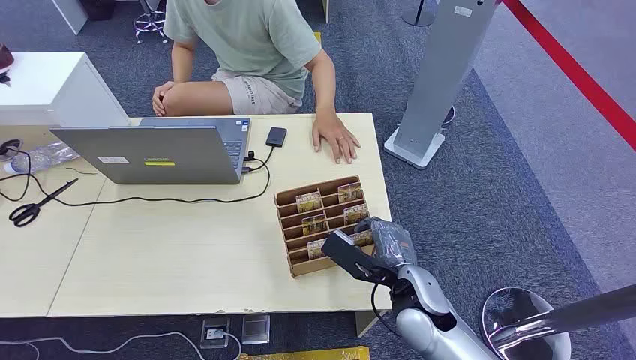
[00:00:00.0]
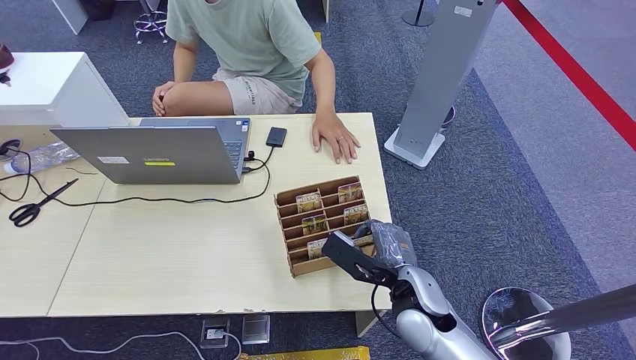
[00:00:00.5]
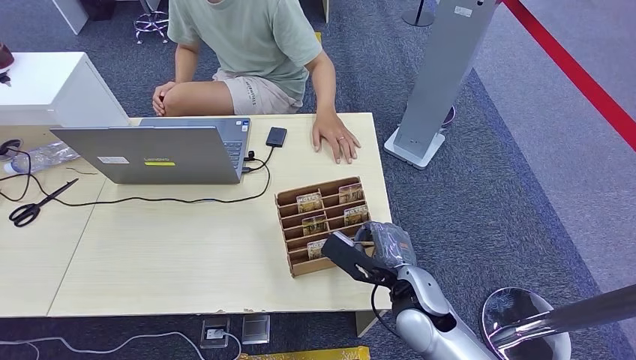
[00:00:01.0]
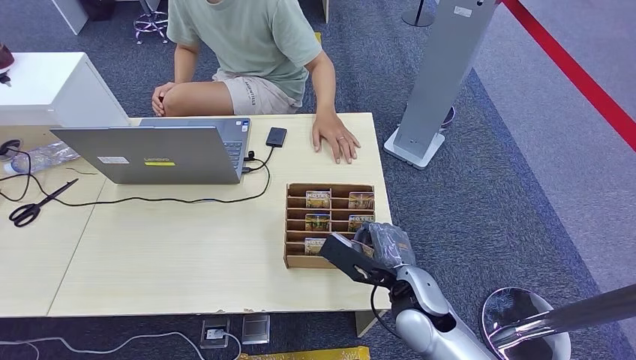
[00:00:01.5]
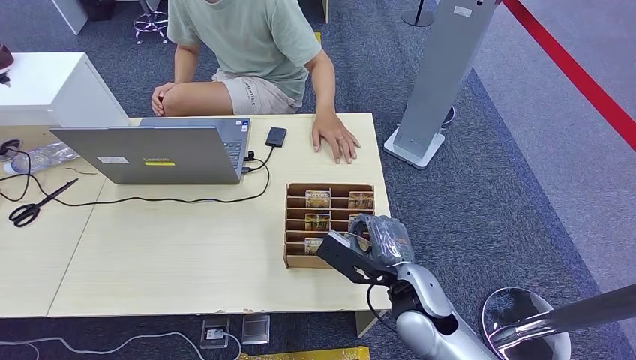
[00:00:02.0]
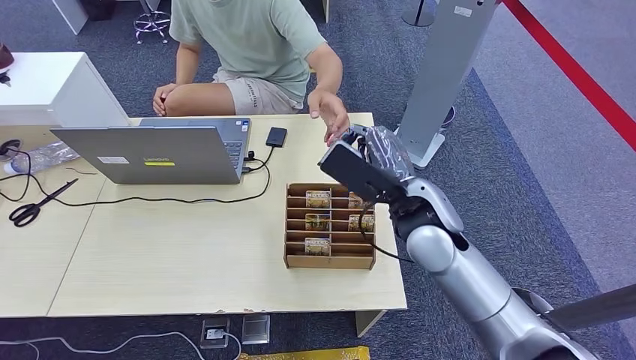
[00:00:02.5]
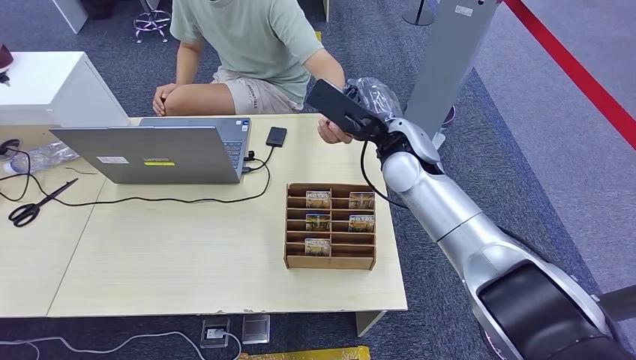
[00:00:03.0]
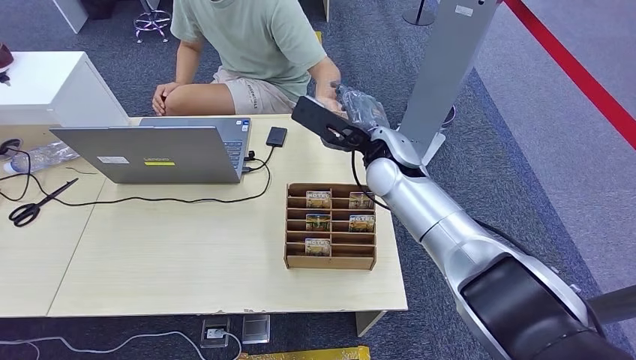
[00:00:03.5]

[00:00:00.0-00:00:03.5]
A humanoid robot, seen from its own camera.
Step, 00:00:00.0 to 00:00:02.0: Pick up the room card from the card holder.
Step, 00:00:03.0 to 00:00:03.5: Hand the room card to the target.
00:00:02.0 to 00:00:03.5: The right hand heads forward and upward, covering about 25 cm.

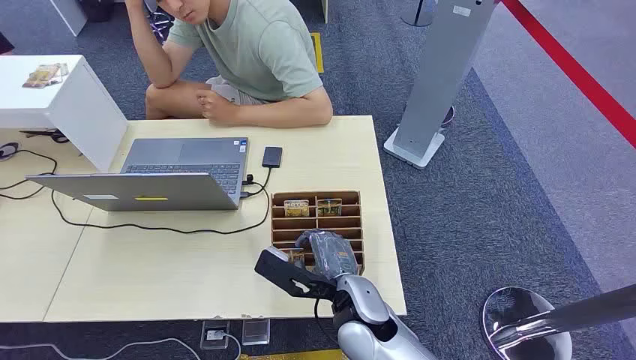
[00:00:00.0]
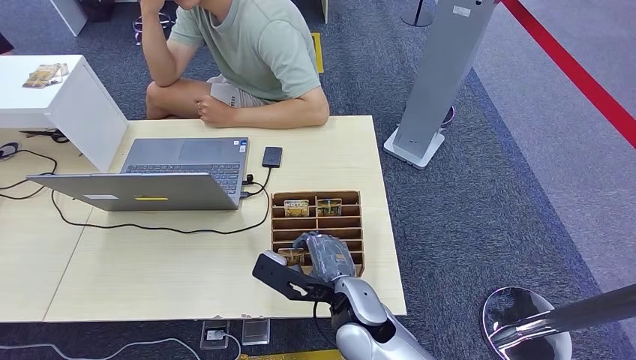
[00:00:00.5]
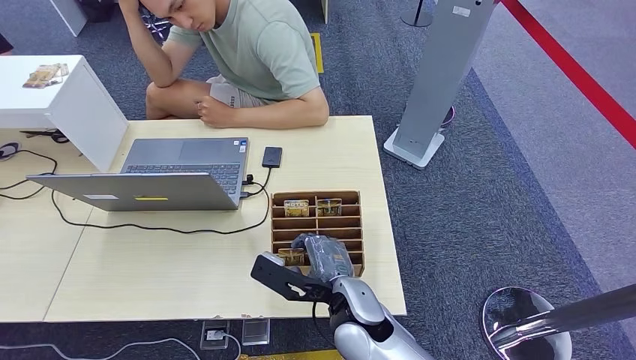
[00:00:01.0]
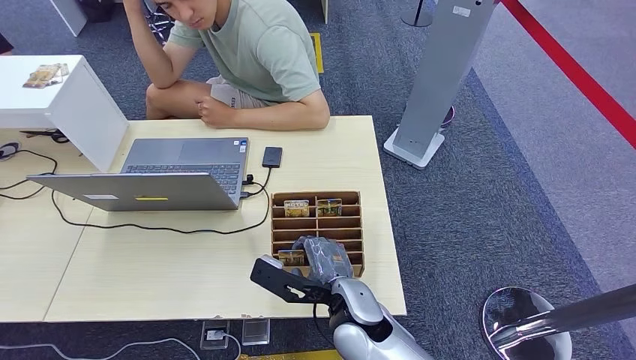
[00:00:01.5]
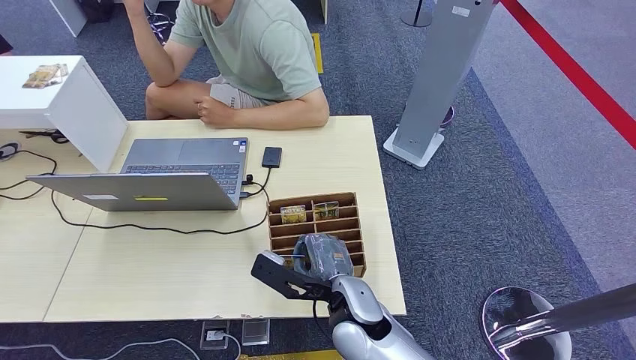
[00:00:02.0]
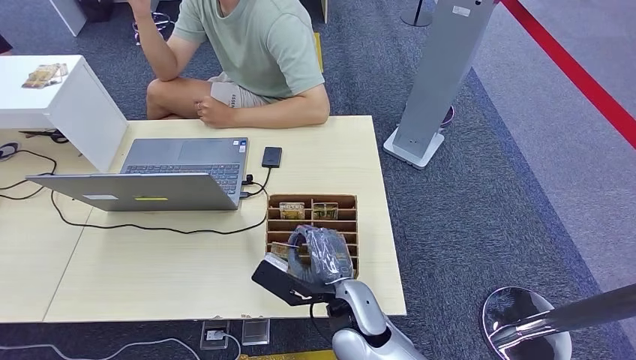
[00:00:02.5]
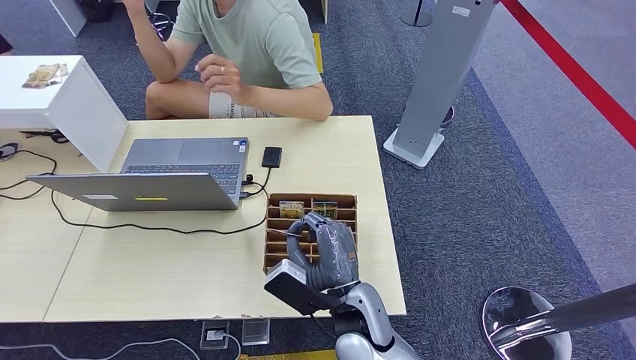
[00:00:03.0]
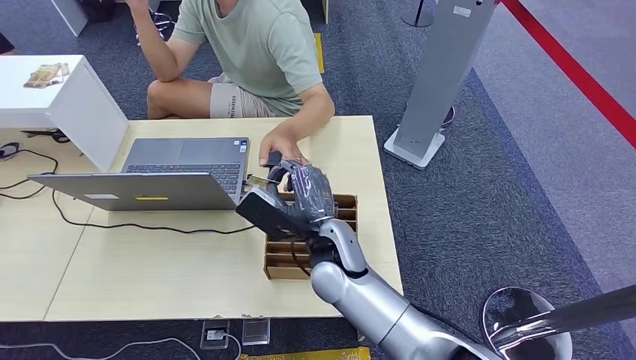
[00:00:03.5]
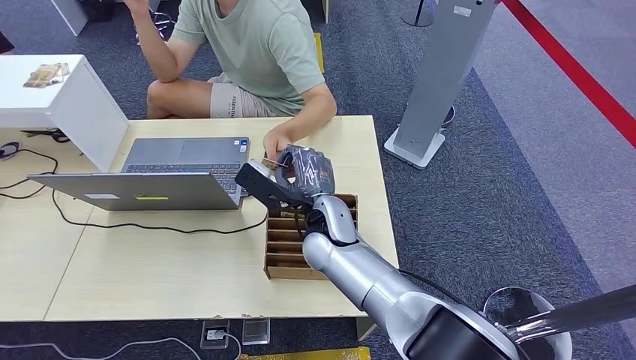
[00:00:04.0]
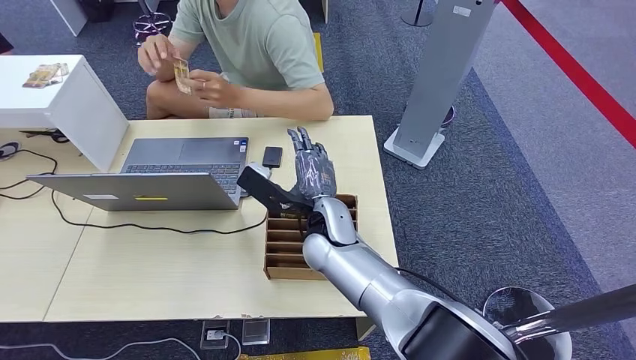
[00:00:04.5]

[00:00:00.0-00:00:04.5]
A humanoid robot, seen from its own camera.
Step, 00:00:00.0 to 00:00:02.5: Pick up the room card from the card holder.
Step, 00:00:04.0 to 00:00:04.5: Hand the room card to the target.
00:00:02.0 to 00:00:04.5: The right hand goes about 15 cm forward.
